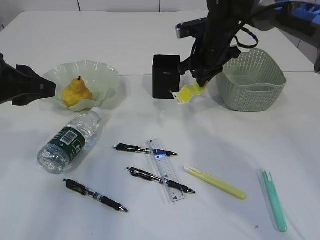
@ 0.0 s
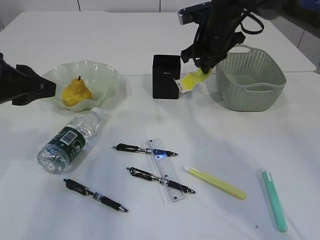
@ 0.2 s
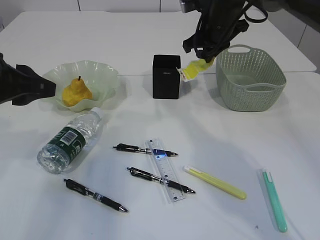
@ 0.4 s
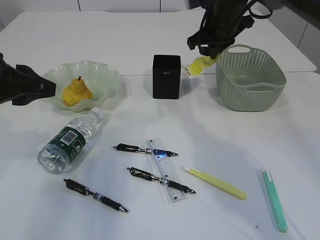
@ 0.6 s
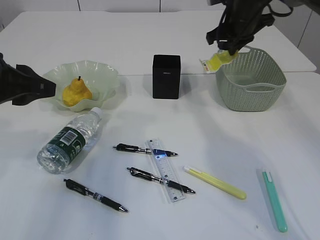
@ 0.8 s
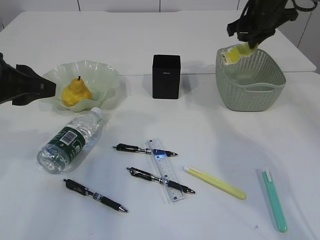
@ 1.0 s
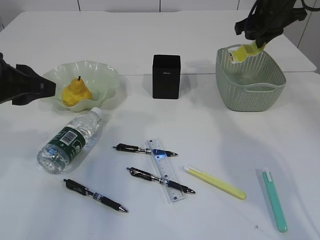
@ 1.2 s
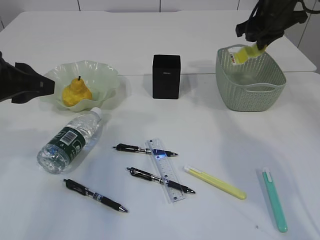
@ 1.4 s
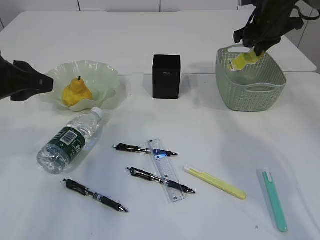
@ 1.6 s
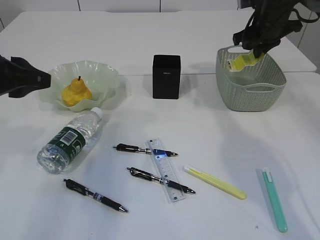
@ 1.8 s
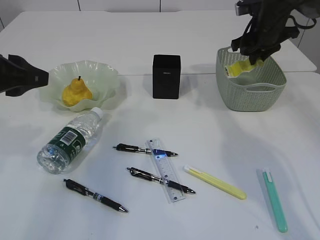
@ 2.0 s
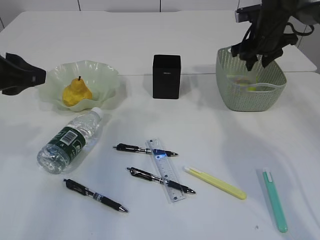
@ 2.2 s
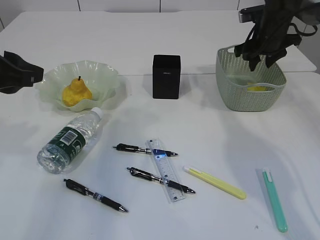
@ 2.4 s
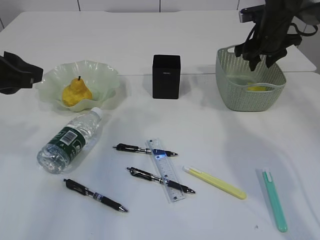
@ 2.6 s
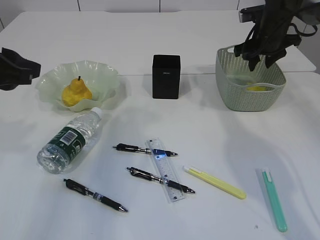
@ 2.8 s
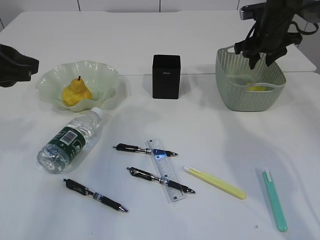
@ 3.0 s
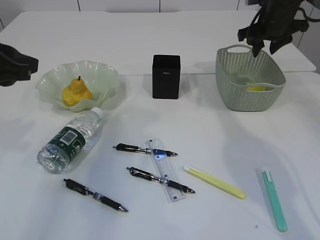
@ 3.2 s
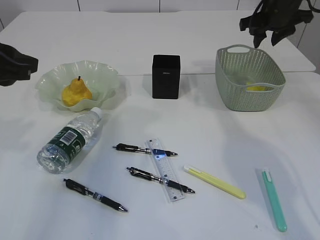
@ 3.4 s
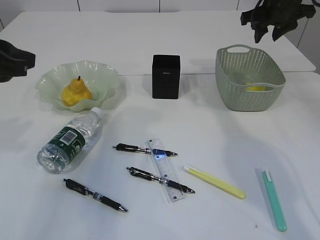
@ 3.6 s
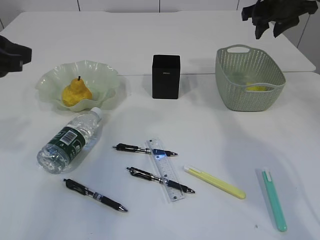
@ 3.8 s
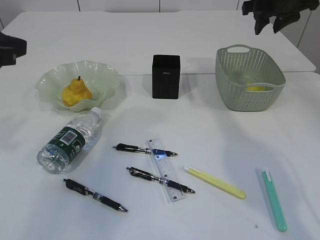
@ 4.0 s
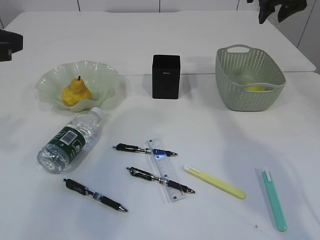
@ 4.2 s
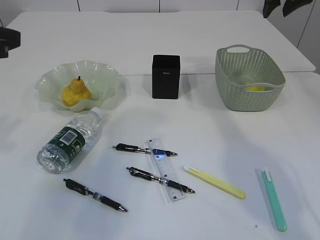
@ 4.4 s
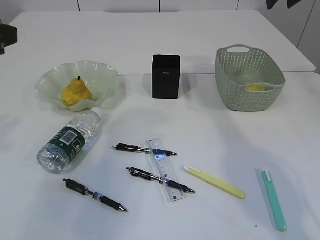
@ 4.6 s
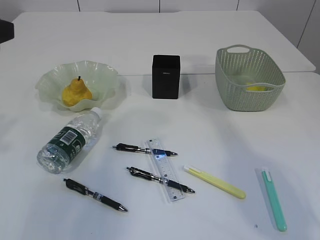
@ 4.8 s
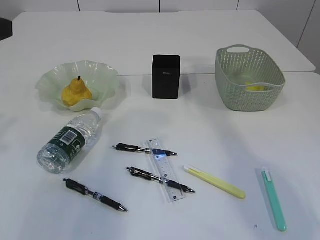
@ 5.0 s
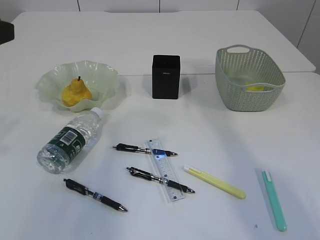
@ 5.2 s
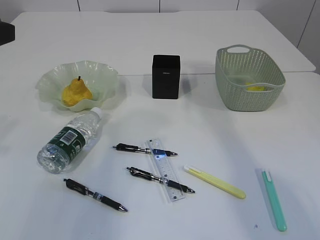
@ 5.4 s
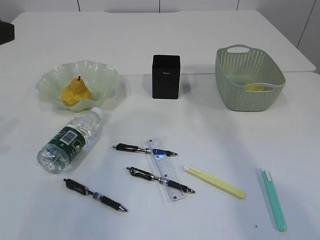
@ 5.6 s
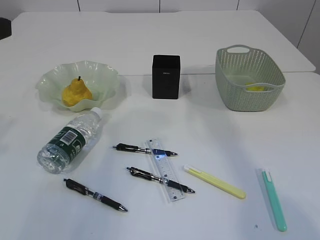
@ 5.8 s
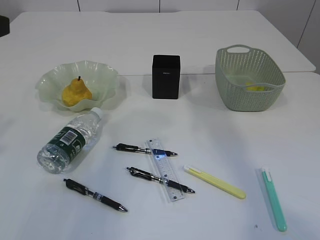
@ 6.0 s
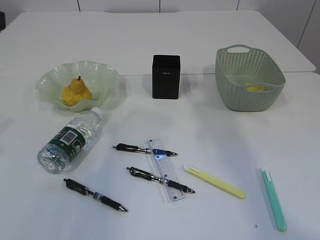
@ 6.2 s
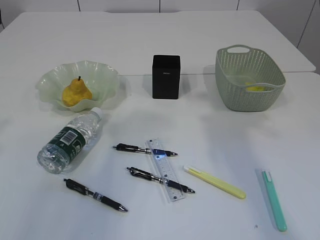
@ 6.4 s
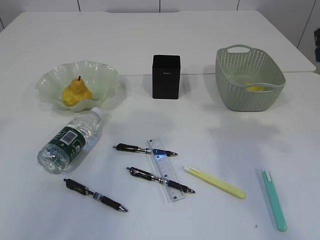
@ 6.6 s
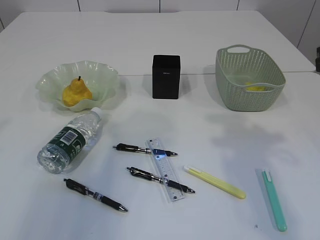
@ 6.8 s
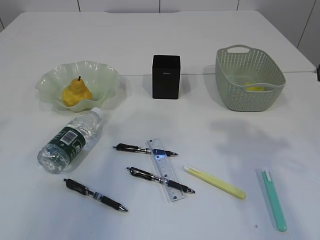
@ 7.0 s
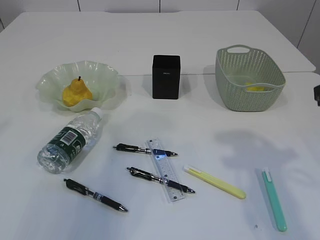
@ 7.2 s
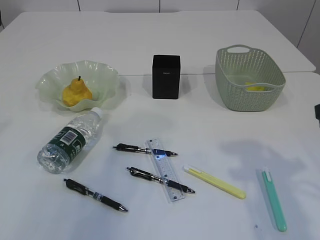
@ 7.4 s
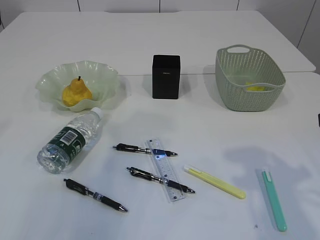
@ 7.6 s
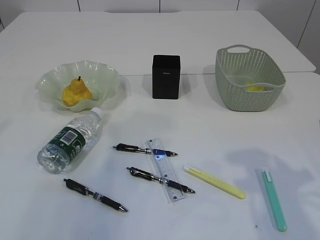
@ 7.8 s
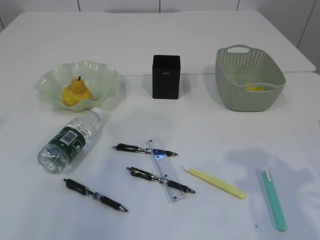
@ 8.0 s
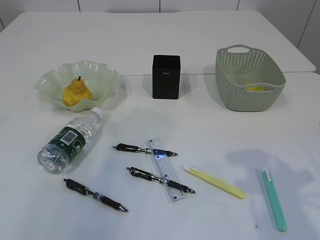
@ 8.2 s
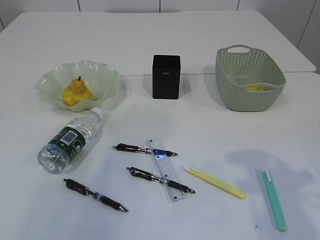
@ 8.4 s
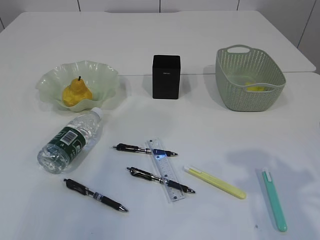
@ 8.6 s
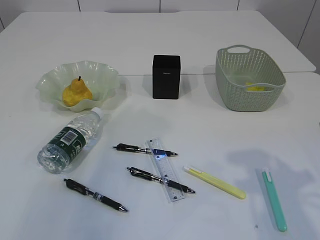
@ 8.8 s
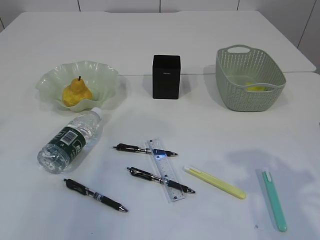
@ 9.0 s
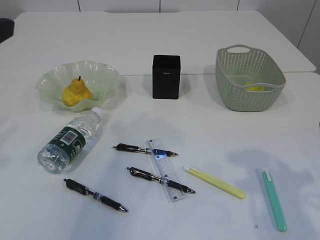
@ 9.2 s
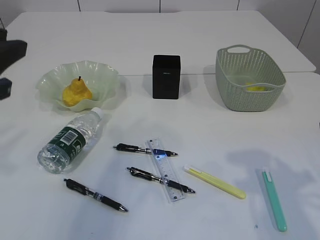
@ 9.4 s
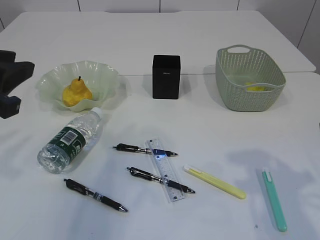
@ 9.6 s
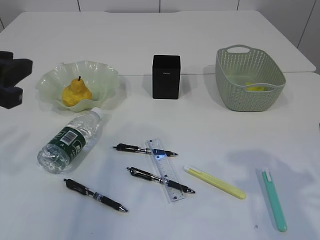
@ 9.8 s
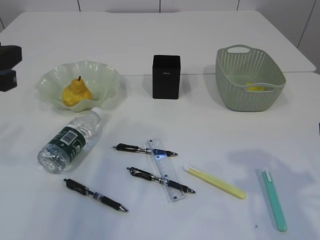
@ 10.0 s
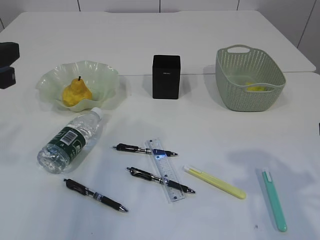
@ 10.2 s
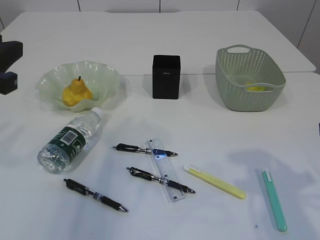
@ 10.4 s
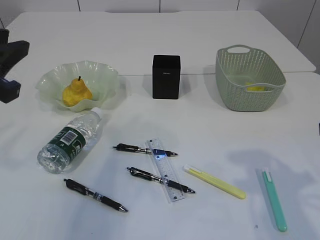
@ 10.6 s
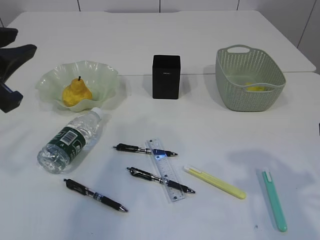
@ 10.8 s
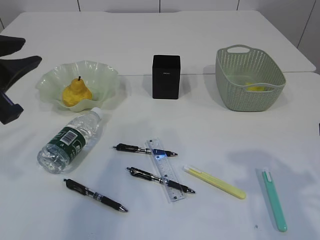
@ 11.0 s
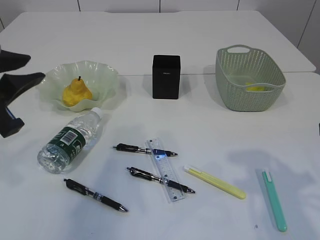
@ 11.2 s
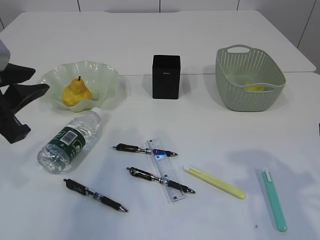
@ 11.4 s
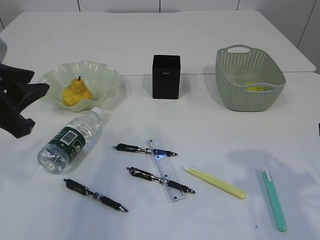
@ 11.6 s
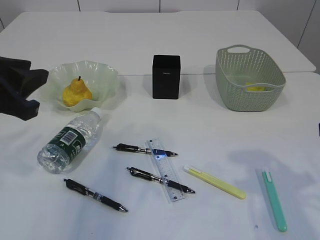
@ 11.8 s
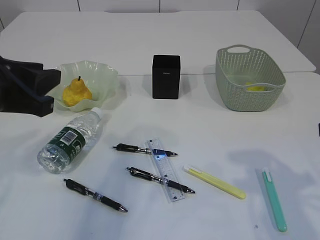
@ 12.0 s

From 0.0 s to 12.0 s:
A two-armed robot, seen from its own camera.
Step, from 0.0 s to 3.6 s: Place the waste paper in the basket.
From 0.0 s to 1.6 s: The right gripper moves to the right, some 10 cm.
From 1.6 s to 3.0 s: The right gripper opens up.
From 3.0 s to 4.4 s: The right gripper moves upward, approximately 10 cm.
From 4.4 s to 6.0 s: The right gripper shifts approximately 15 cm backward and upward.
From 9.0 s to 10.4 s: The grippers move only a little.

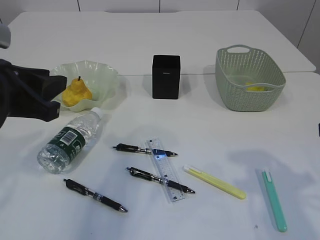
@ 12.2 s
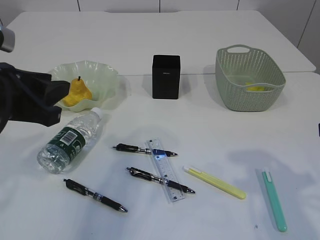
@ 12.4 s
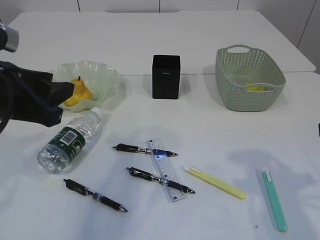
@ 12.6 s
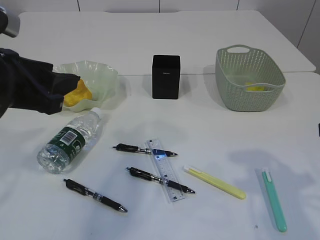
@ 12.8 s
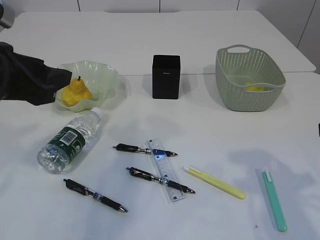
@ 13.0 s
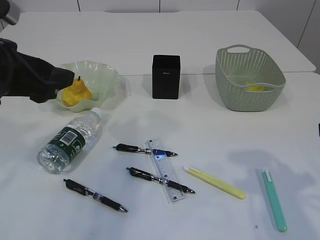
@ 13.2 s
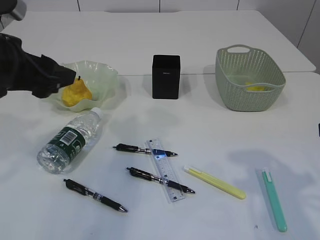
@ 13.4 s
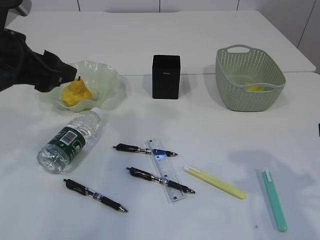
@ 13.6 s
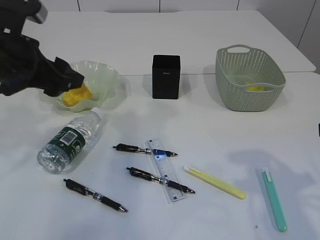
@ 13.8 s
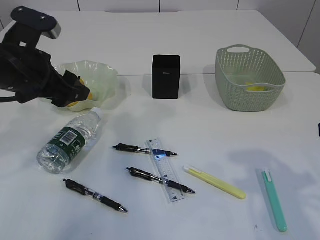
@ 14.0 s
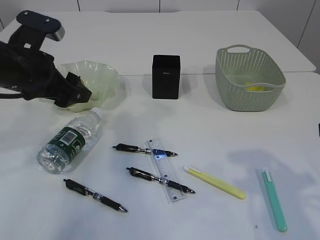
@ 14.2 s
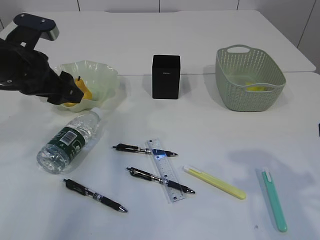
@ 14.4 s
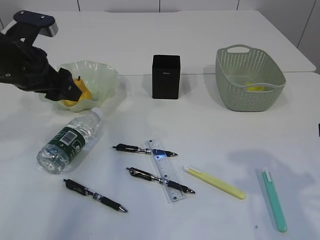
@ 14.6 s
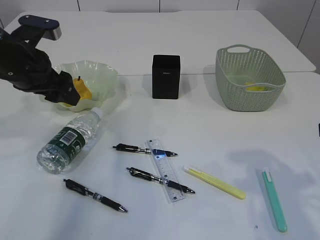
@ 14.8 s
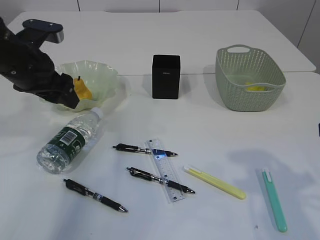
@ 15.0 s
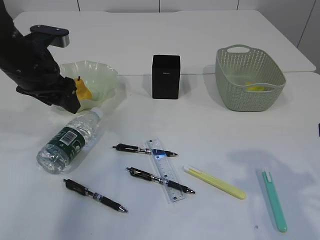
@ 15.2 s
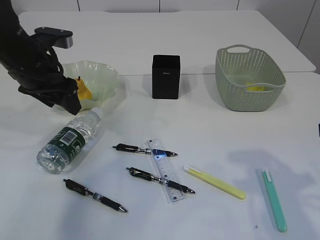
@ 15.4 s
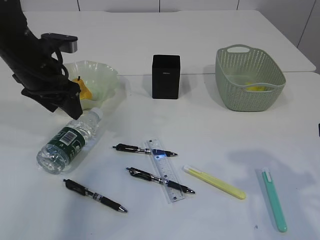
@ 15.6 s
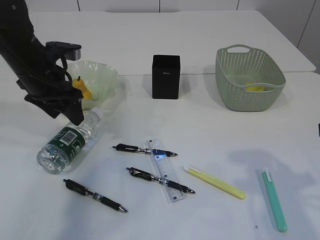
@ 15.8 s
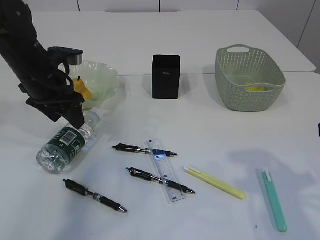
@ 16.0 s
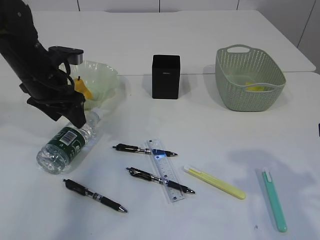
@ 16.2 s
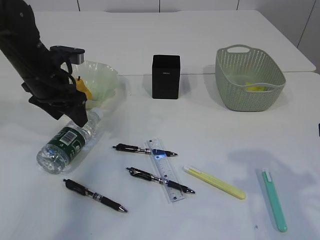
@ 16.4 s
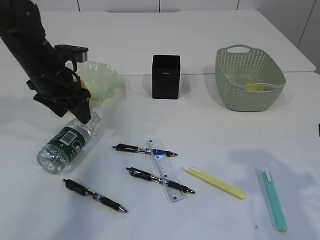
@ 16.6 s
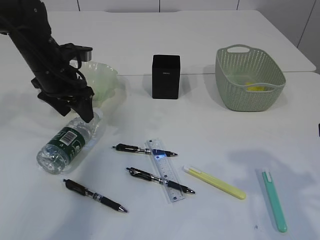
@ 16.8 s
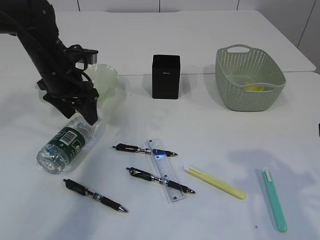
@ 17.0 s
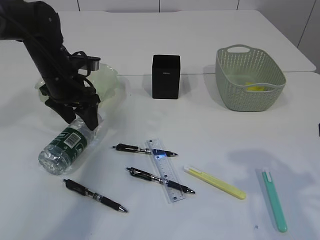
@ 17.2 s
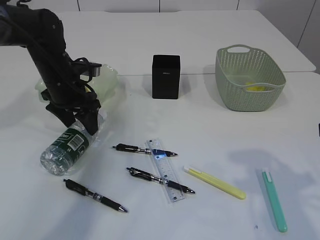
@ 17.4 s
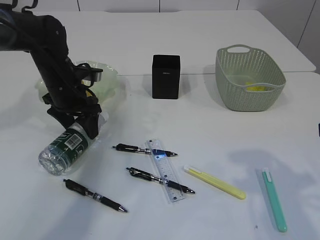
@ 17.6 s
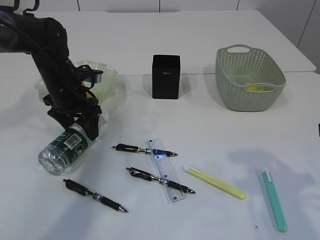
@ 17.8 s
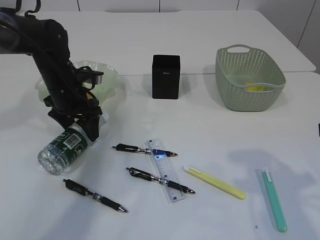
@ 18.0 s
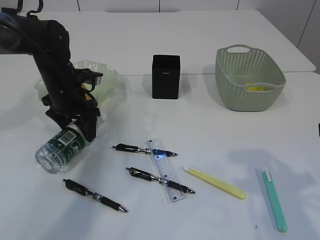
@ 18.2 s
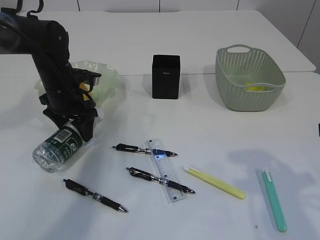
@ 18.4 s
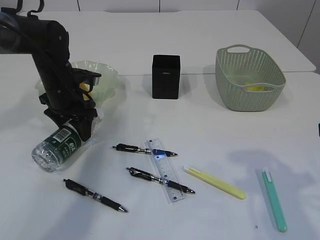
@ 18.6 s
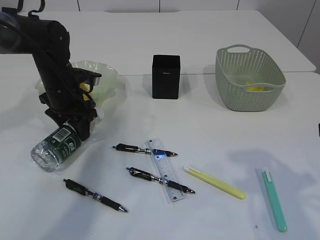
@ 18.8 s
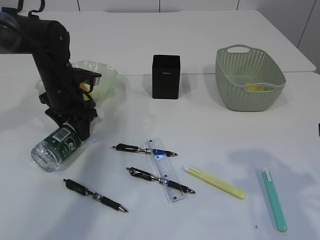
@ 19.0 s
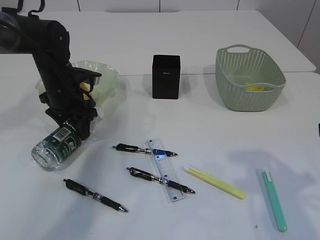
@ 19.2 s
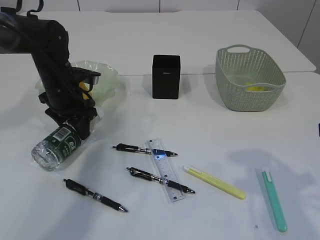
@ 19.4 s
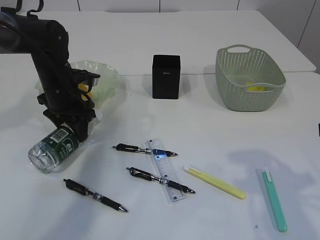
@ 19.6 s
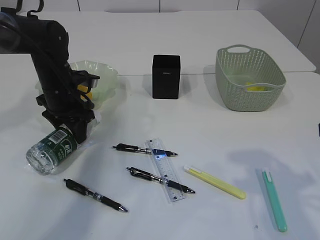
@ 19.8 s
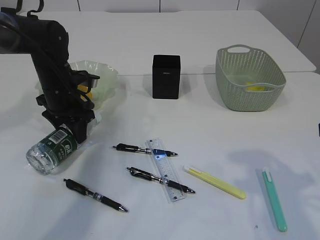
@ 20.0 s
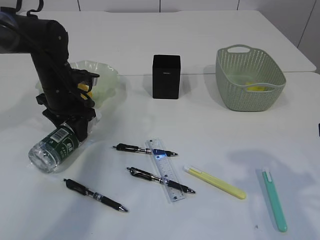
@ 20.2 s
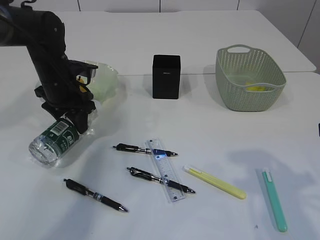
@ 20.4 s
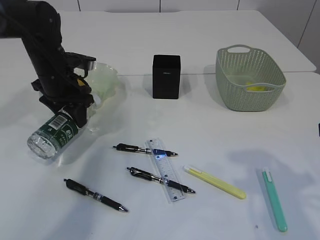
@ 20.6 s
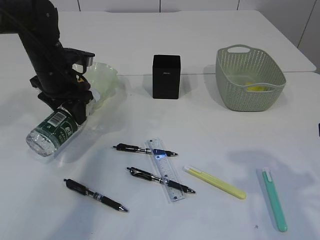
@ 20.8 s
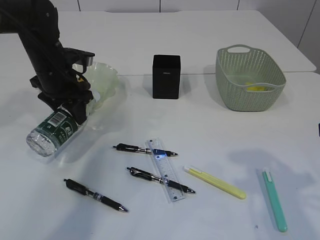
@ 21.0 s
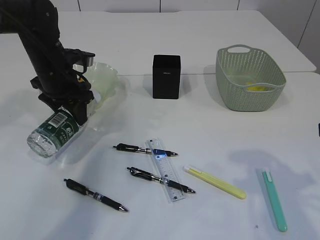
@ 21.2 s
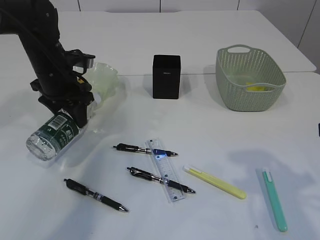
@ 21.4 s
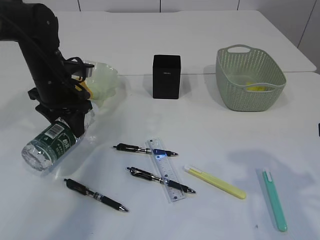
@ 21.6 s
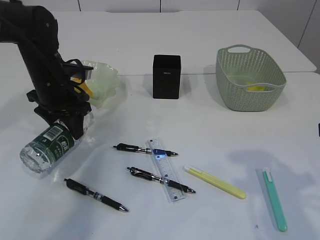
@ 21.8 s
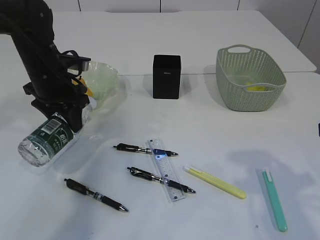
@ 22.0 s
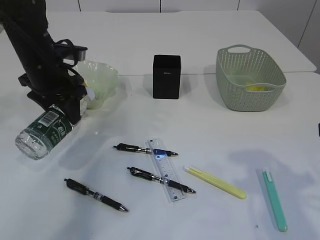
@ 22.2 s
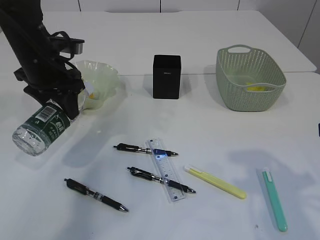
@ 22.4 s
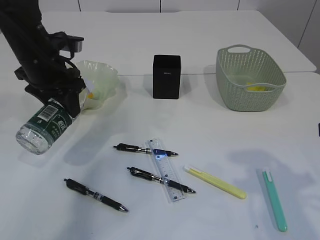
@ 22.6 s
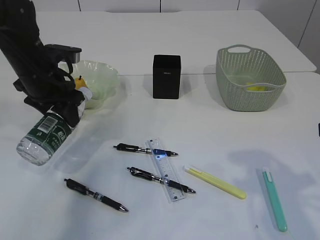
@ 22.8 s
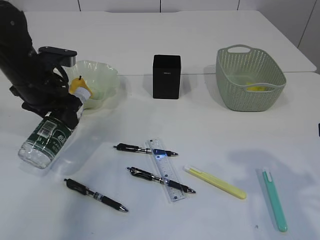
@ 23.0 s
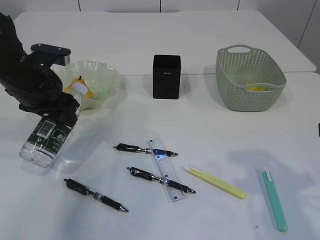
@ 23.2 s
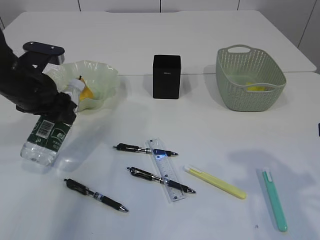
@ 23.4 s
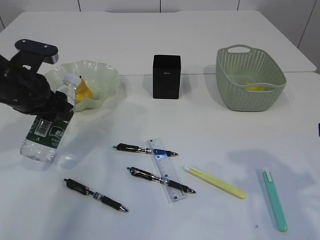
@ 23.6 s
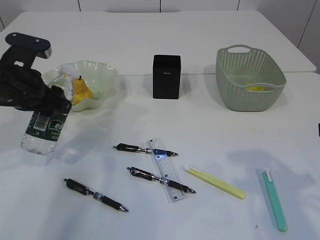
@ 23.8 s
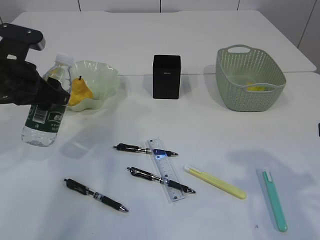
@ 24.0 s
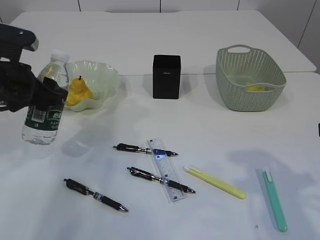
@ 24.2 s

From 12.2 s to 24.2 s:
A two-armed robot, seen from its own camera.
Step, from 12.2 s to 22.8 s: Pick up the bottle with the left arm.
From 12.2 s to 13.8 s: The left gripper heads forward, covering roughly 5 cm, and opens.
From 13.8 s to 15.2 s: The left gripper heads forward, covering approximately 5 cm.
From 15.2 s to 16.6 s: The left gripper moves about 5 cm.
From 16.6 s to 18.2 s: The left gripper is displaced downward by some 5 cm.
From 18.2 s to 19.8 s: The left gripper closes its fingers.
From 19.8 s to 21.2 s: The grippers stay close to where they were, moving slightly.
From 21.2 s to 22.6 s: The grippers stay close to where they were, moving slightly.
From 22.6 s to 24.2 s: The left gripper travels backward by about 10 cm.
